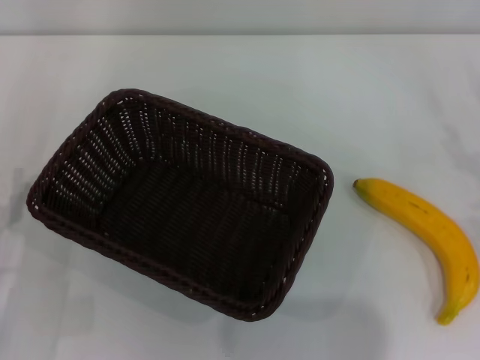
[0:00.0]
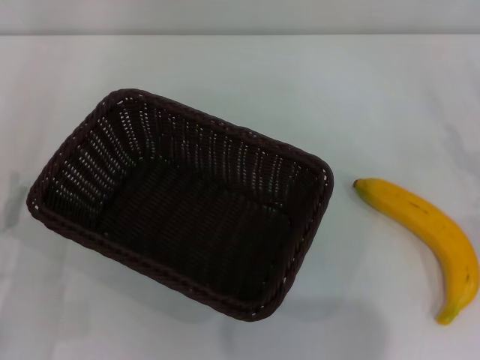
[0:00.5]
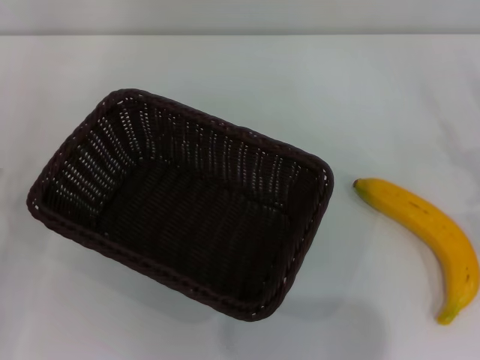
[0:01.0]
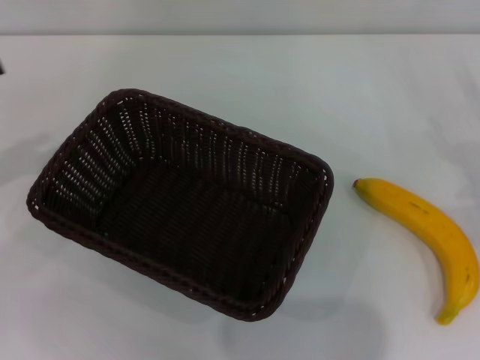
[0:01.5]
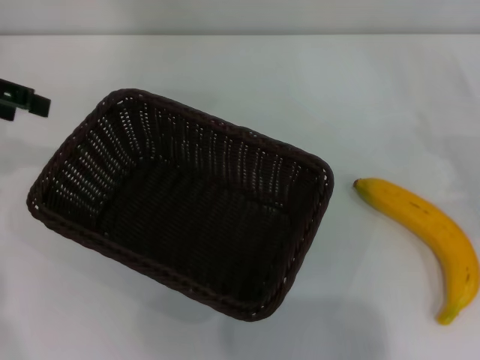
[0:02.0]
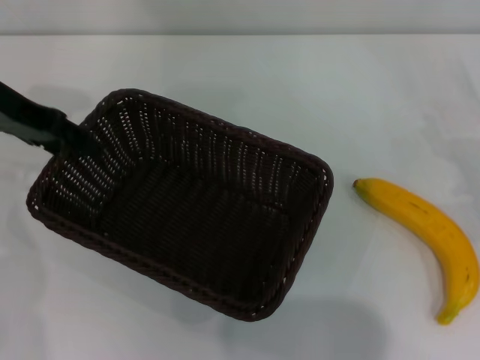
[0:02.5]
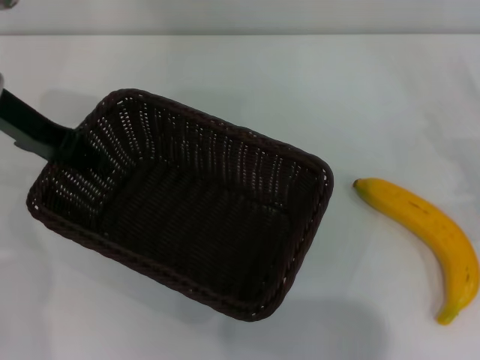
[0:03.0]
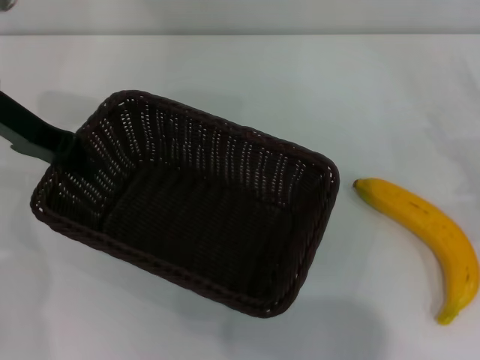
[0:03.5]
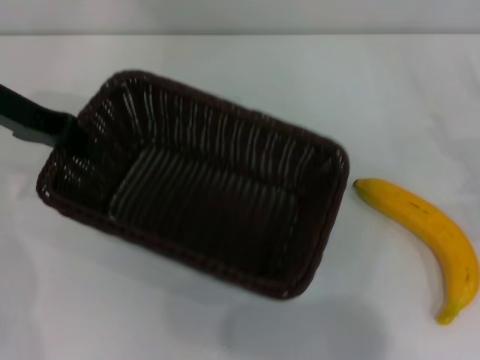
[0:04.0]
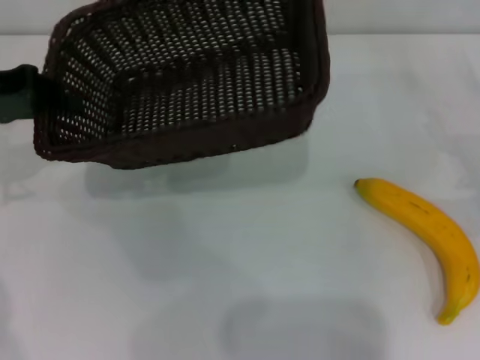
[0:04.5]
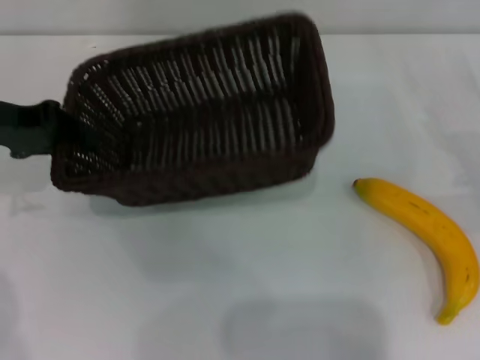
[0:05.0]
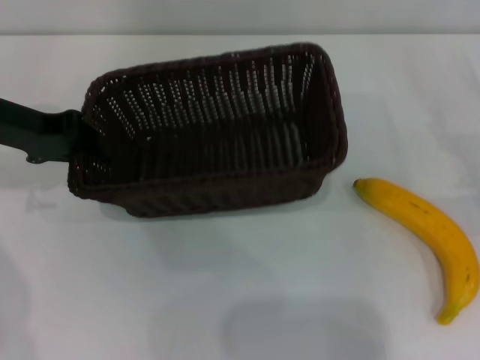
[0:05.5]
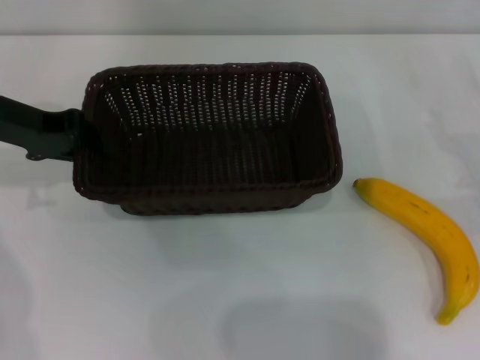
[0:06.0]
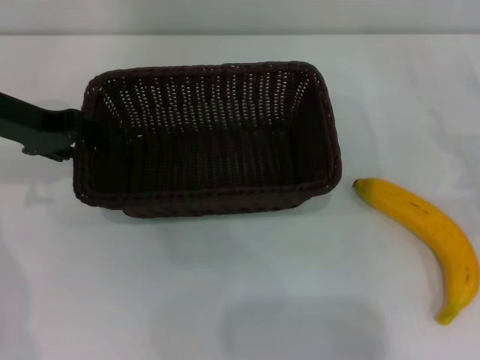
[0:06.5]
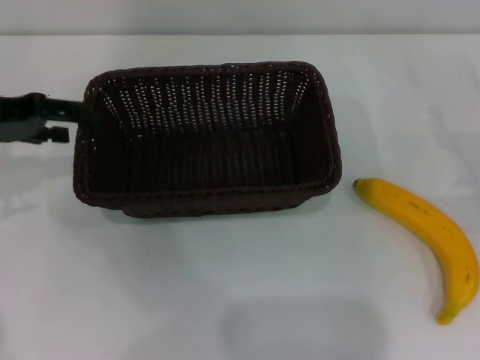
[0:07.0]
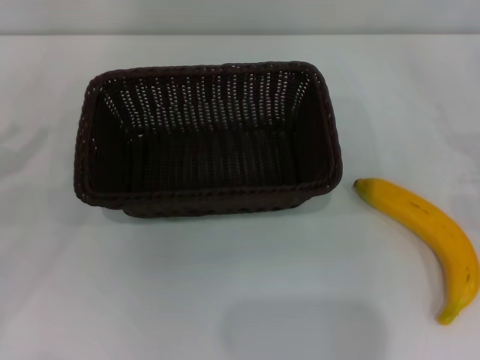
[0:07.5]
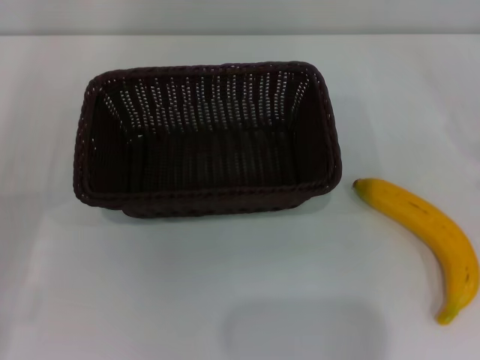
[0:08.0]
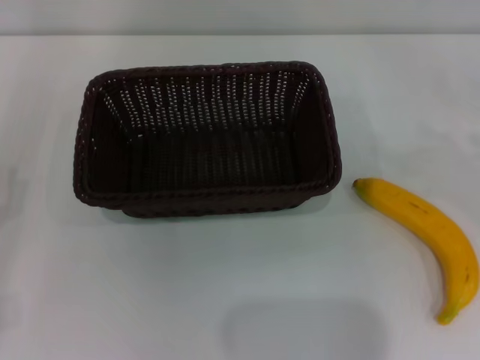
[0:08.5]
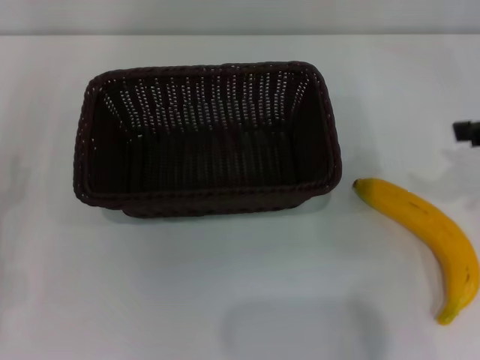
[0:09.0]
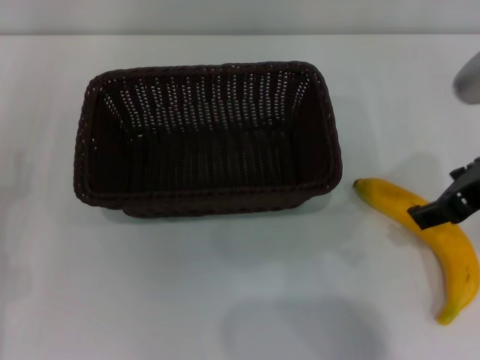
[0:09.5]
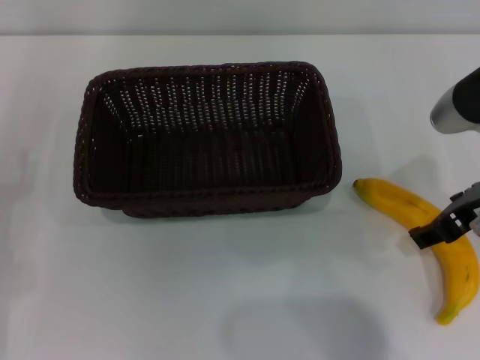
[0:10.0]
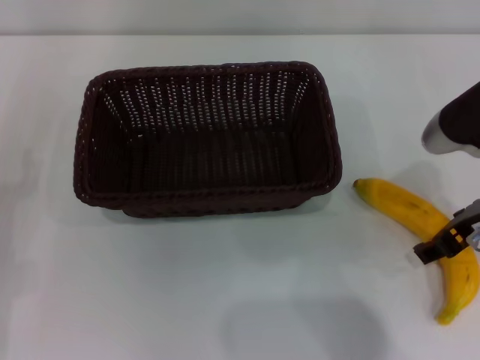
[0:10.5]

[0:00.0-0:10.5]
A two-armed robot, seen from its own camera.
Step, 0:00.0 to 0:04.0: Pick up the dark basket with the left gripper.
Step, 0:04.5 to 0:07.0: Place the dark basket in the center of view with the left gripper.
0:00.0 to 0:02.0: The left gripper moves upward and forward, about 30 cm.
0:02.0 to 0:04.0: The left gripper is displaced to the right by some 5 cm, and closes.
0:04.0 to 0:06.5: The left gripper opens up.
0:06.5 to 0:08.5: The left gripper moves backward, downward and to the left, roughly 25 cm, and opens up.
0:08.5 to 0:10.5: The right gripper travels to the left by approximately 20 cm.

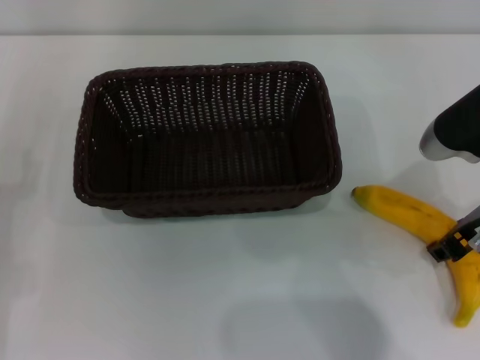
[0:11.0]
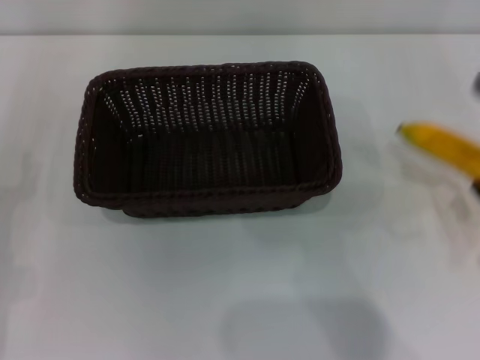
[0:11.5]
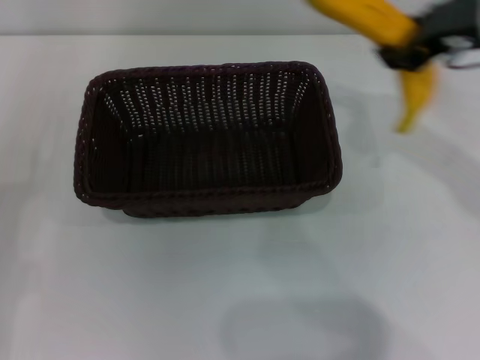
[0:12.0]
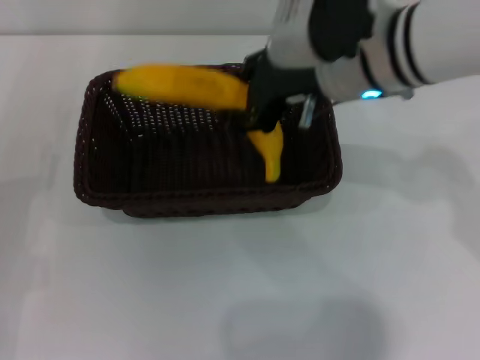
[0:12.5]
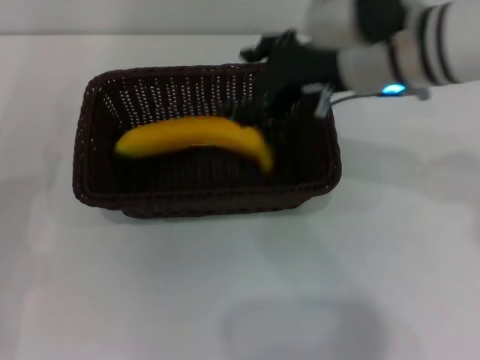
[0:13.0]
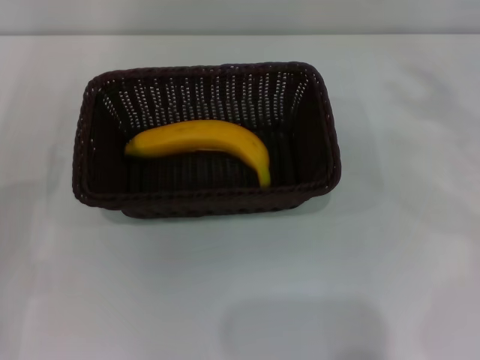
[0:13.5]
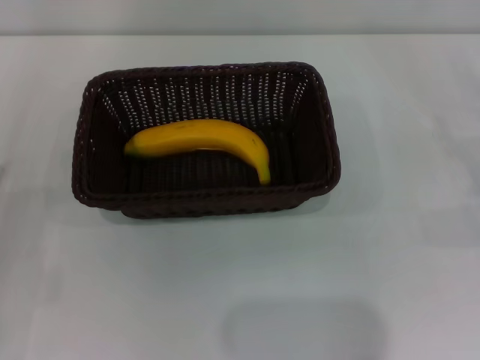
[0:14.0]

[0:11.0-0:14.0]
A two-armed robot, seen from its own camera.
Step, 0:11.5 to 0:13.0: Place the banana into the dark basket with the right gripper.
0:11.0 to 0:12.5: The right gripper travels to the left, forward and upward by about 15 cm.
0:12.5 to 0:14.0: The right gripper goes about 35 cm to the right and downward, and opens up.
